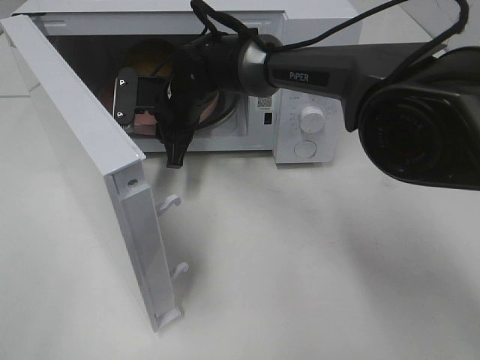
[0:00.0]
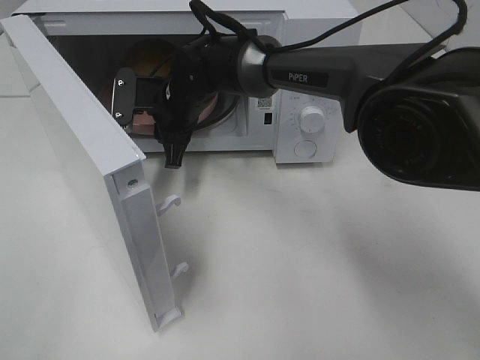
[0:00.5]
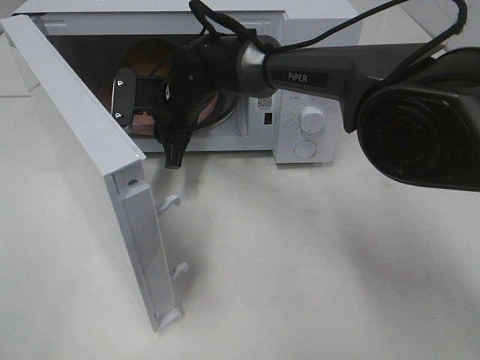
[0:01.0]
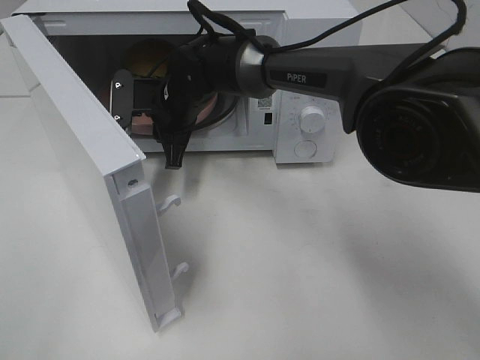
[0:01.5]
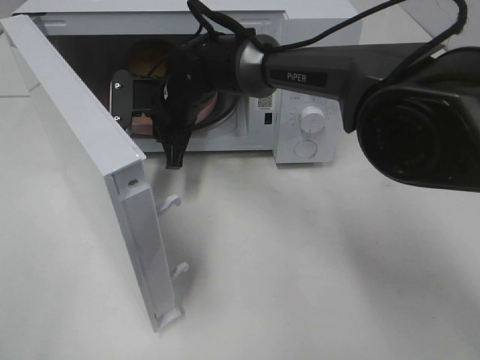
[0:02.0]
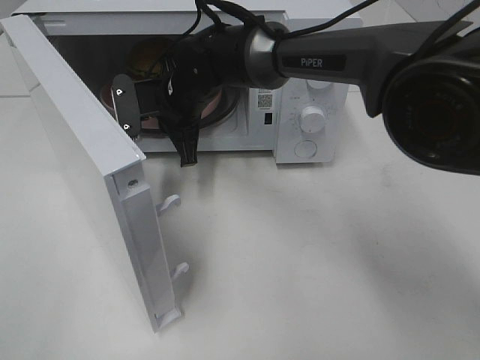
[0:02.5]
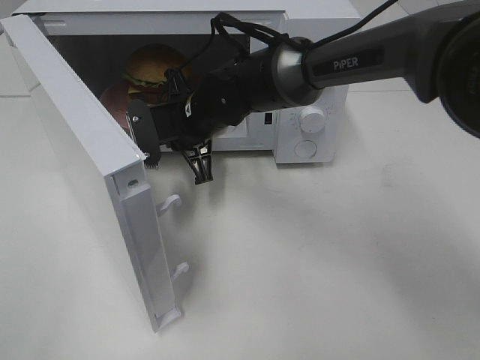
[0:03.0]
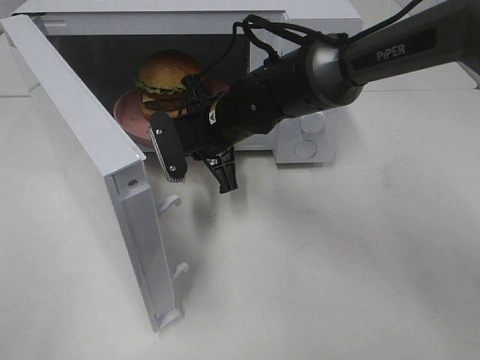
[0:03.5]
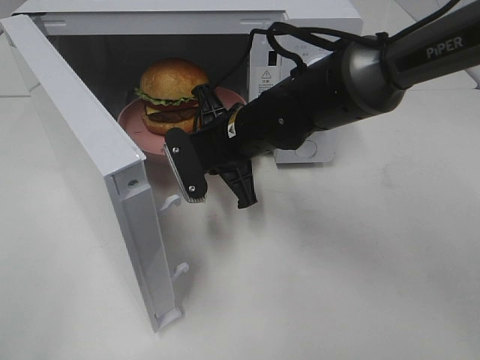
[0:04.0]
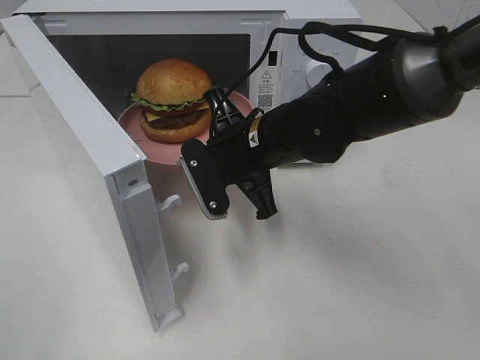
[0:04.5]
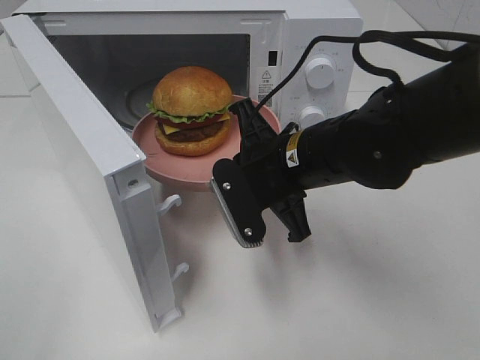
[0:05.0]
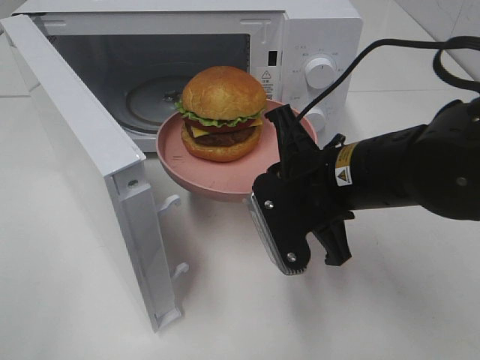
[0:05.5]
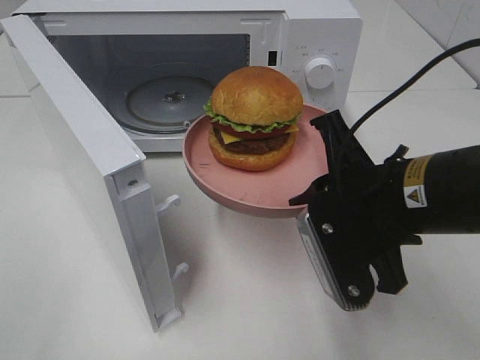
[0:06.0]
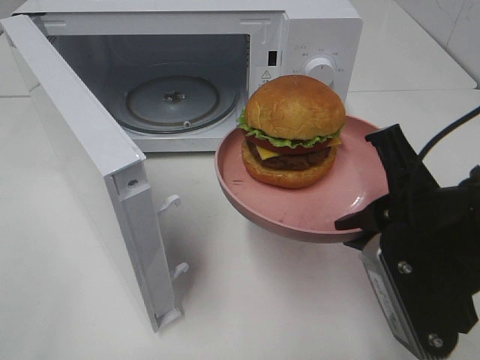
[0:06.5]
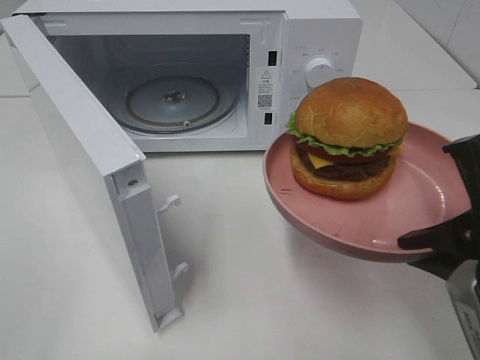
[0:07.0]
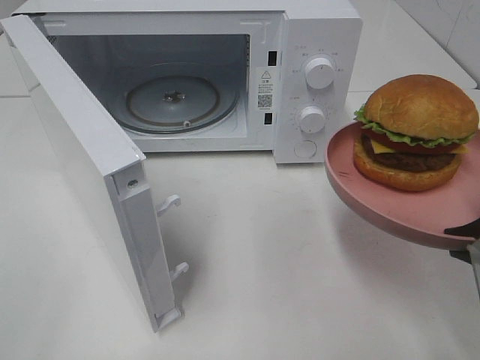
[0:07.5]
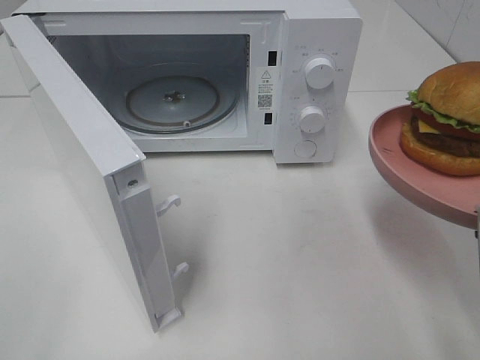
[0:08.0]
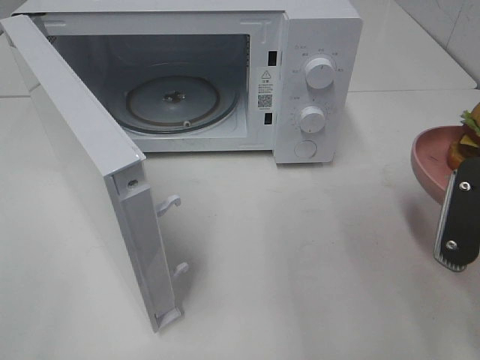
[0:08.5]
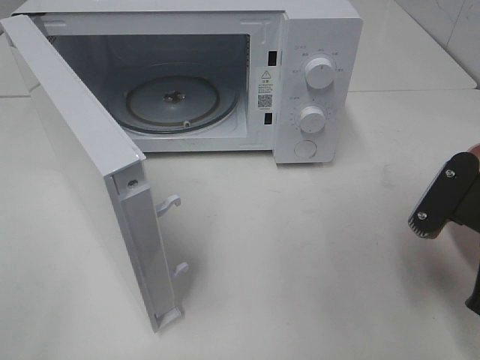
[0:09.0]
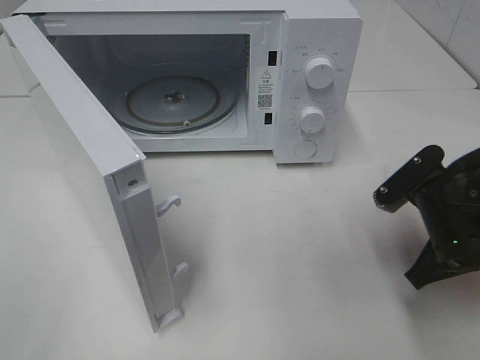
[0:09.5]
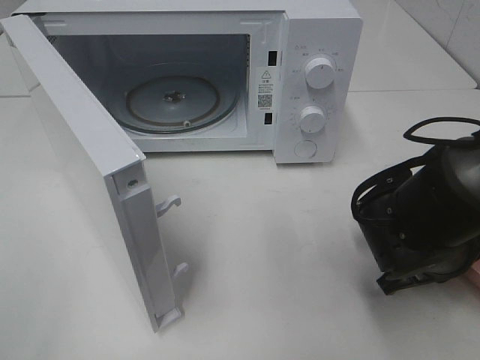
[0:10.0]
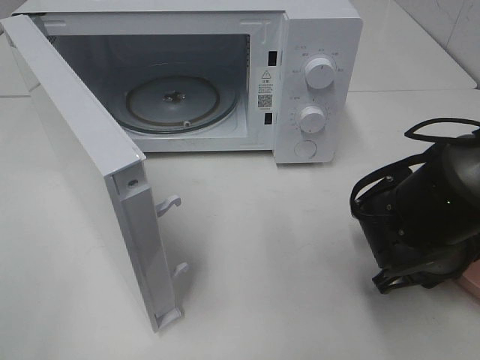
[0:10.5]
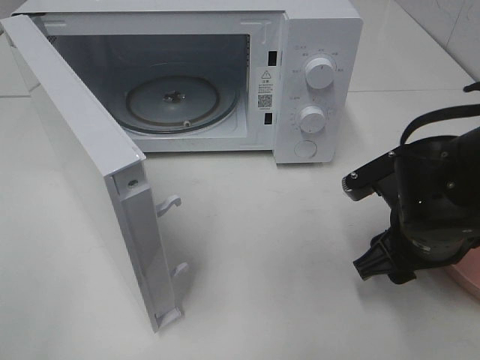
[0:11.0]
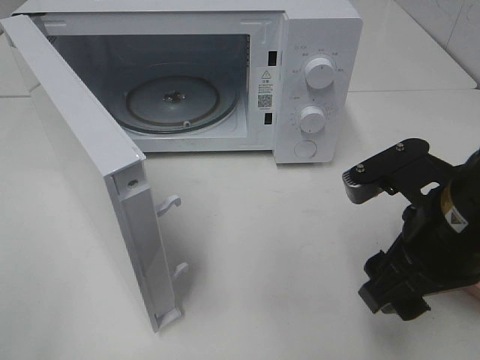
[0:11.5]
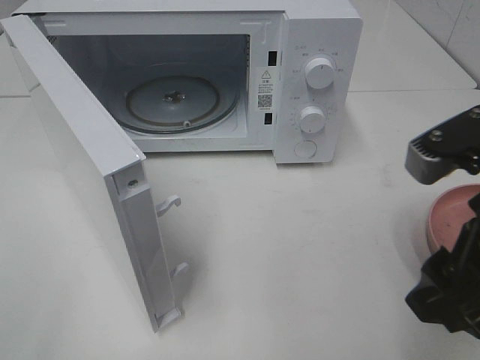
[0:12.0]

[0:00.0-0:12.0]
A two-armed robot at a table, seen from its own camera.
Task of the whole recording: Heat the burger.
Step, 0:00.0 to 0:02.0: Right hand: grab the plate with the hamburger.
Step, 0:02.5 to 0:10.5: Right hand: place the plate on the table.
0:00.0 to 0:02.0: Both grippers stay about where they are.
0:02.0 to 0:04.0: The right gripper moves backward and to the right, about 10 cm.
0:04.0 to 0:06.0: The right gripper is displaced backward and to the right by roughly 20 cm.
0:06.0 to 0:08.0: The right gripper goes some 15 cm to the right and backward.
0:08.0 to 0:10.0: The right gripper moves downward and forward, approximately 20 cm.
0:10.0 to 0:12.0: The right gripper travels upward and backward by approximately 20 cm, and opens up.

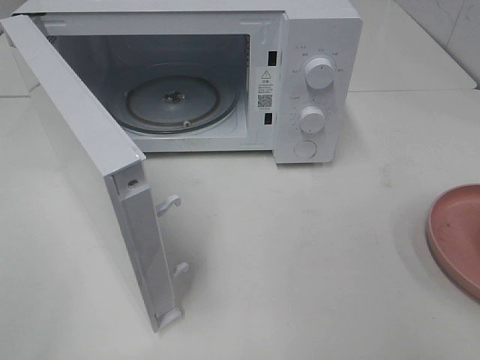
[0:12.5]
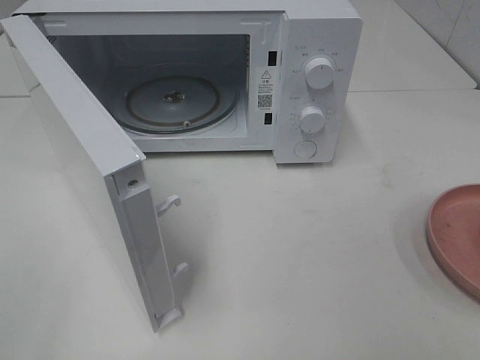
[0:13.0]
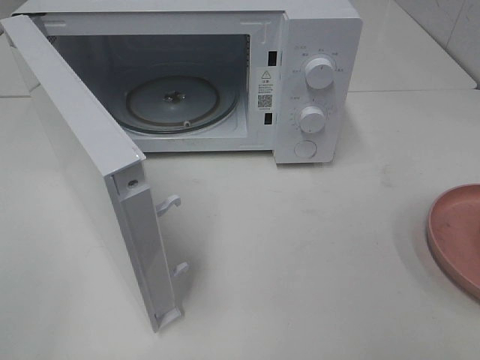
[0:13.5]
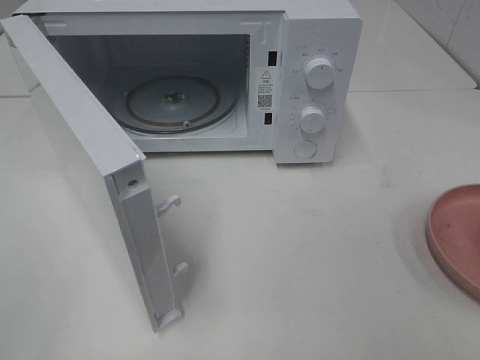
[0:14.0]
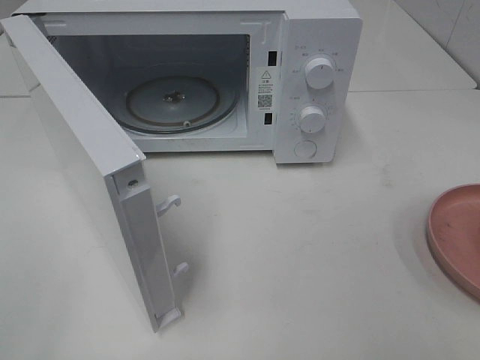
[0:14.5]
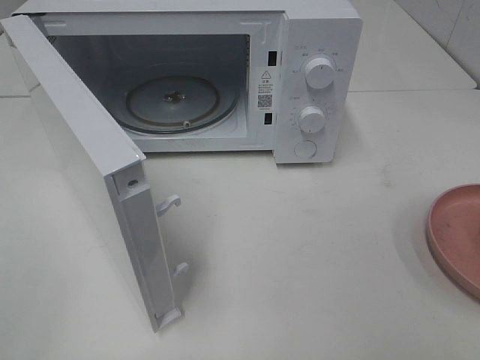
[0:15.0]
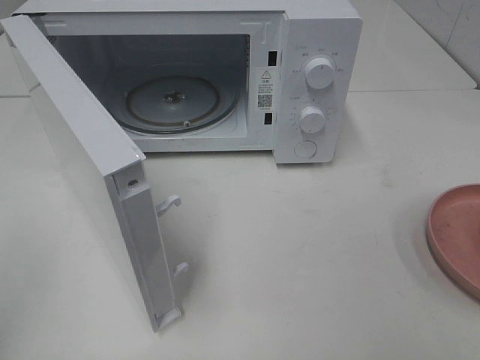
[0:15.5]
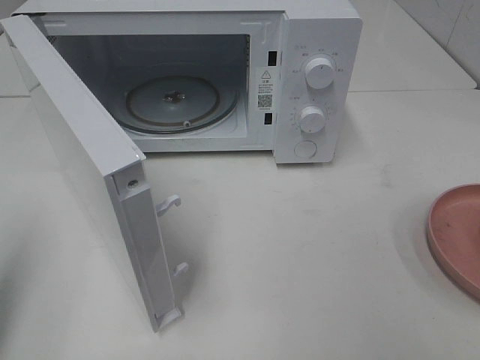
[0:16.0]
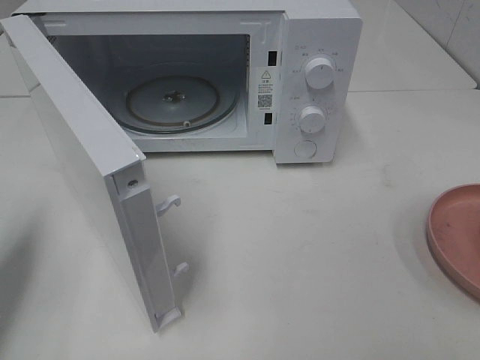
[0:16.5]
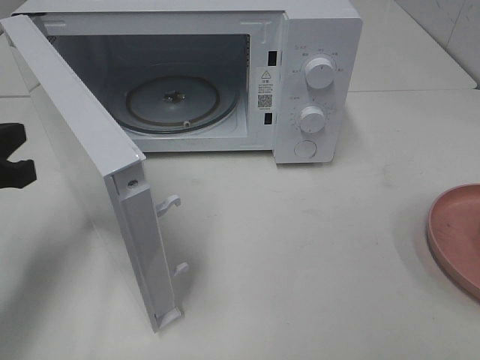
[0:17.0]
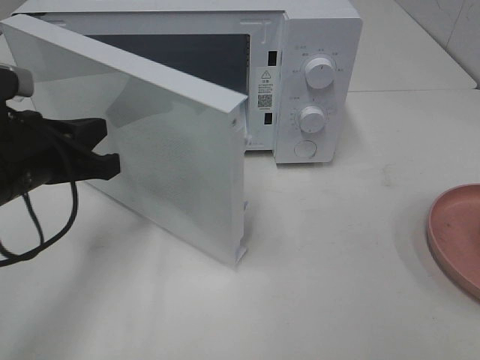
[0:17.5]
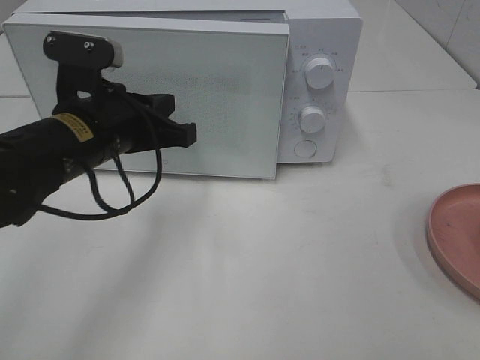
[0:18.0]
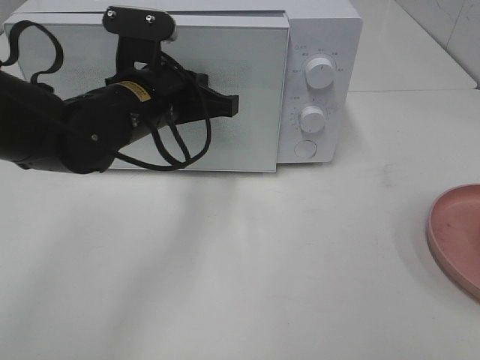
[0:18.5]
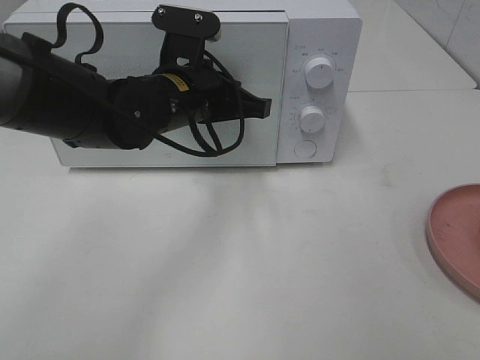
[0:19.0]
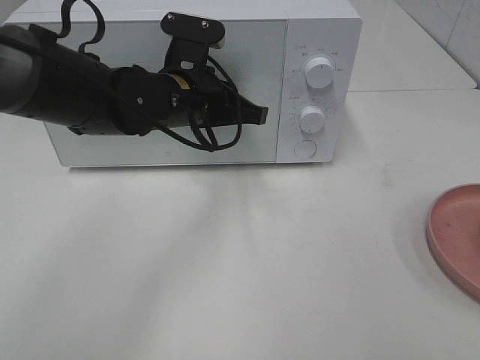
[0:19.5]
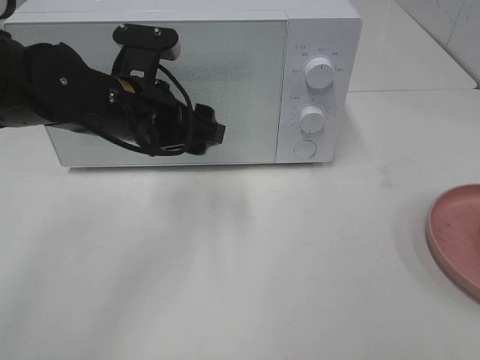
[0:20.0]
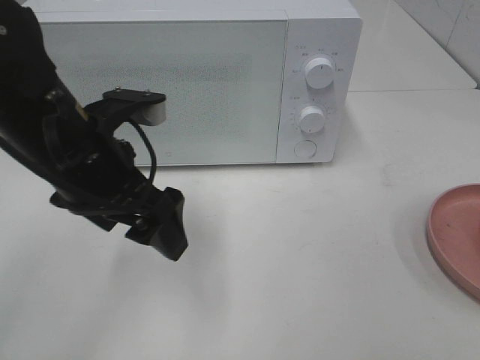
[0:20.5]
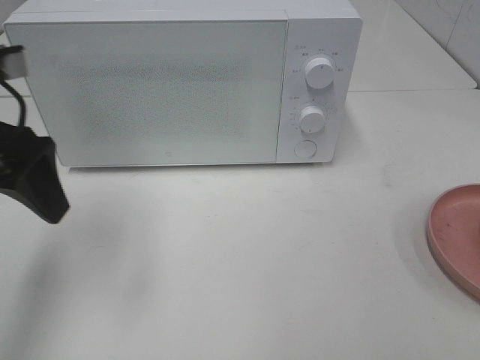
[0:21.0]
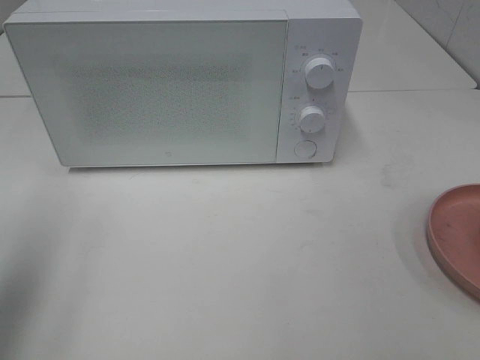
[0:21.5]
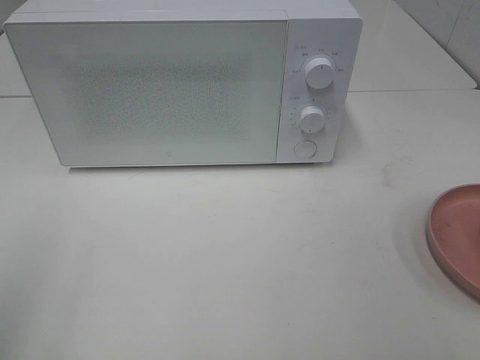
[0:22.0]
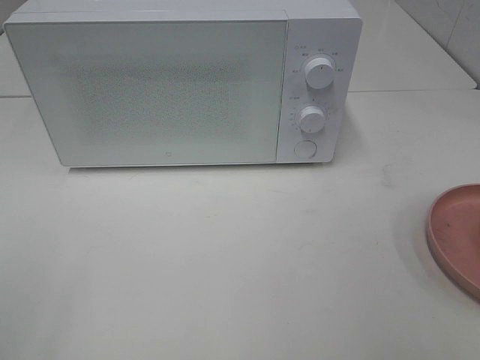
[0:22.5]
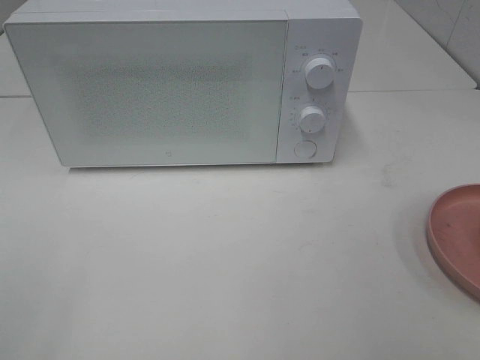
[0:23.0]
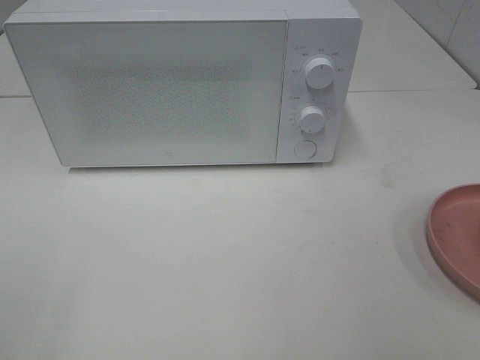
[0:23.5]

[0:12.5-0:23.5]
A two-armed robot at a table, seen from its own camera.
Task of the whole recording: Heat the burger.
Step, 0:12.5 to 0:20.0: Left hand: close the microwave door.
0:14.5 to 0:16.0: The left gripper travels forward by approximately 10 cm, and closes its fingers.
0:16.0 to 0:18.0: The left gripper is displaced to the right, forward and downward by about 25 cm.
0:18.0 to 0:20.0: The left gripper opens up.
0:20.0 to 0:21.5: The left gripper travels to the left, backward and upward by some 30 cm.
0:21.5 to 0:23.5: The left gripper moves backward, some 15 cm.

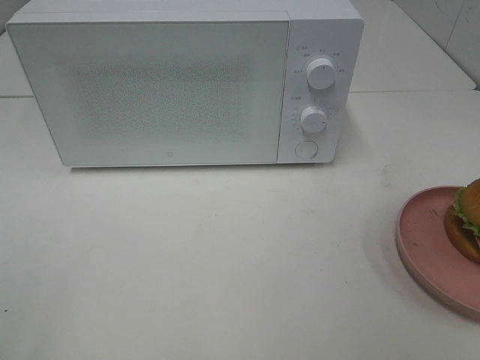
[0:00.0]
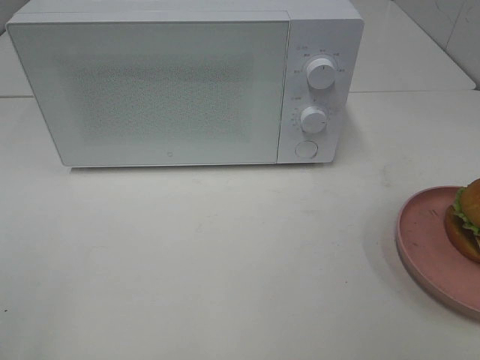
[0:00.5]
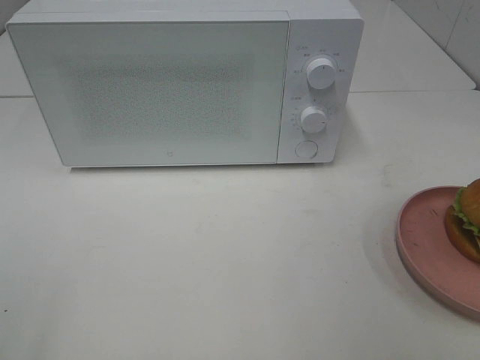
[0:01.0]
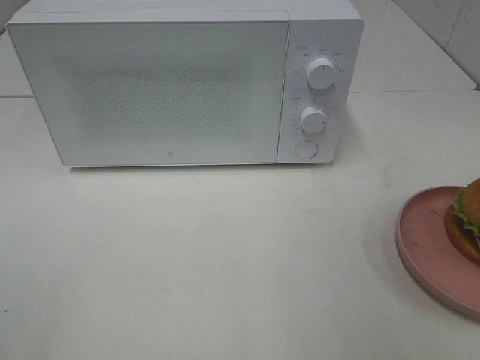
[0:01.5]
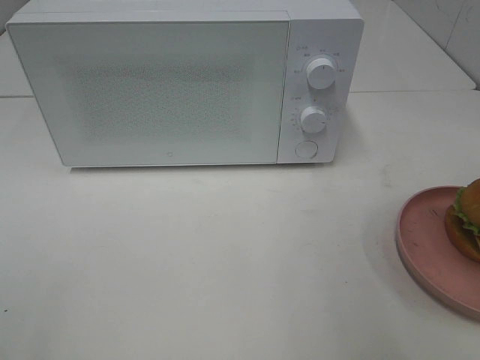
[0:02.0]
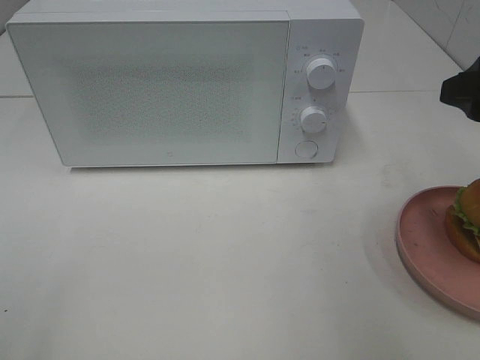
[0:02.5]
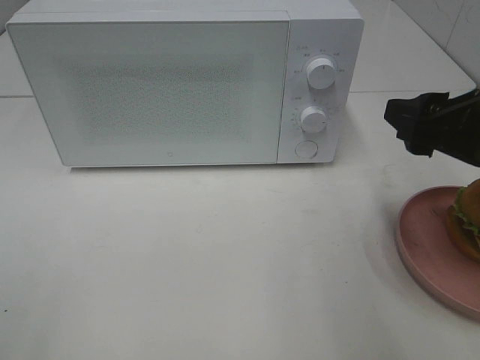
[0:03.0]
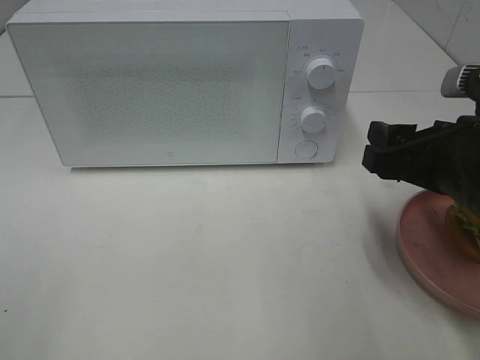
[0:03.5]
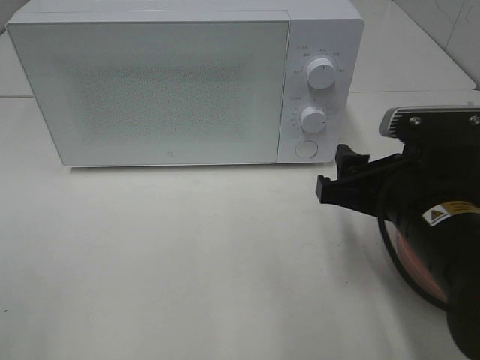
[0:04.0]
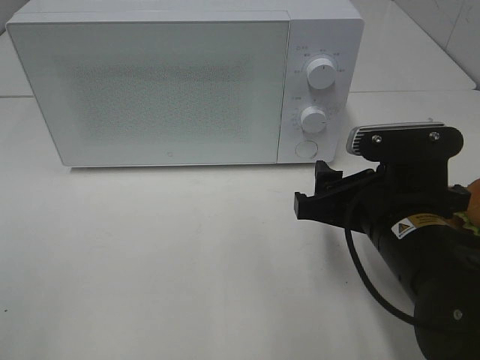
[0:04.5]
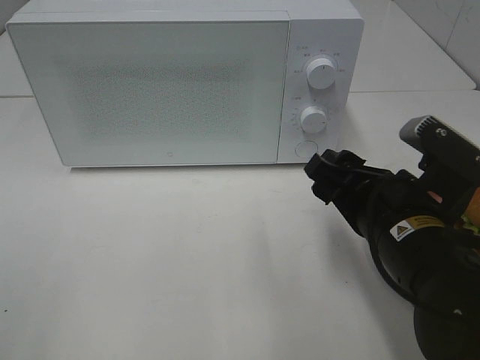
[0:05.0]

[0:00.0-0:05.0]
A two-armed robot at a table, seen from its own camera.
Task of the whole recording: Heat the burger.
0:00.0 to 0:02.5: The right gripper travels forward by roughly 20 cm.
0:02.5 to 0:05.0: The right gripper is displaced downward and to the left by roughly 15 cm.
